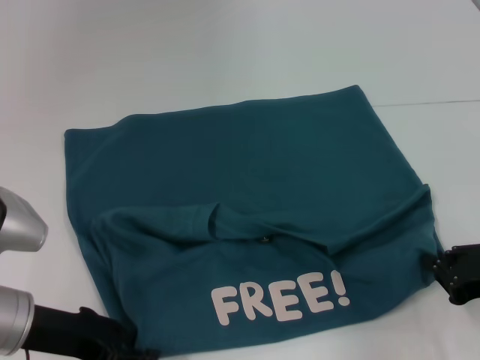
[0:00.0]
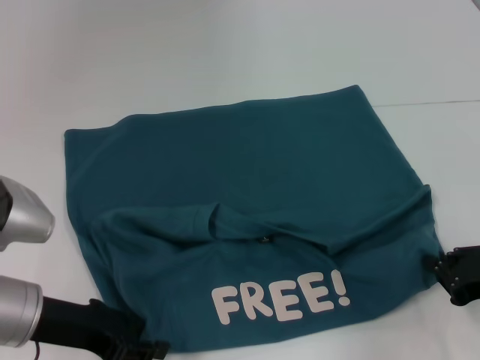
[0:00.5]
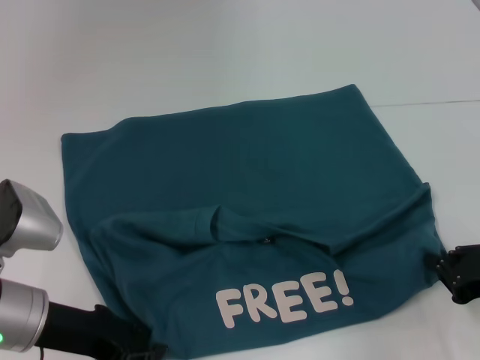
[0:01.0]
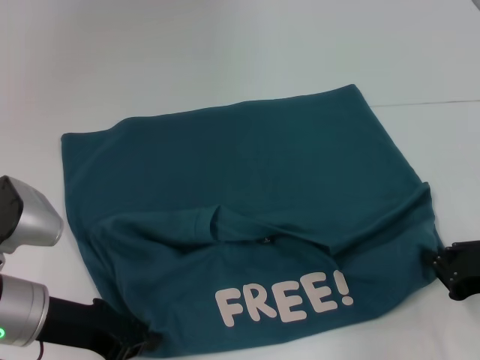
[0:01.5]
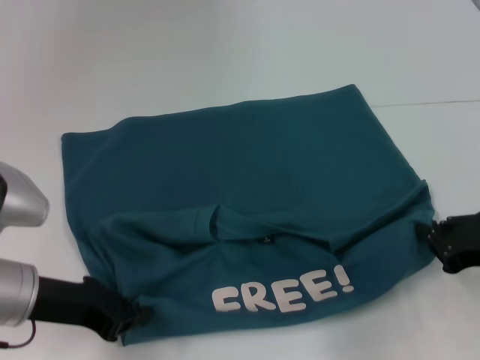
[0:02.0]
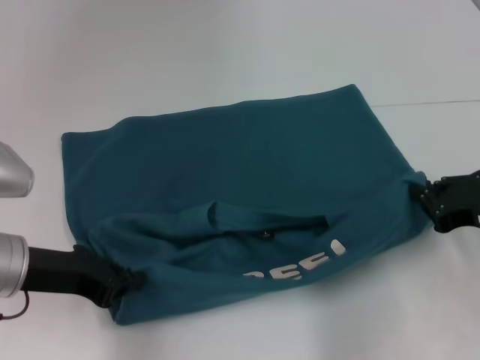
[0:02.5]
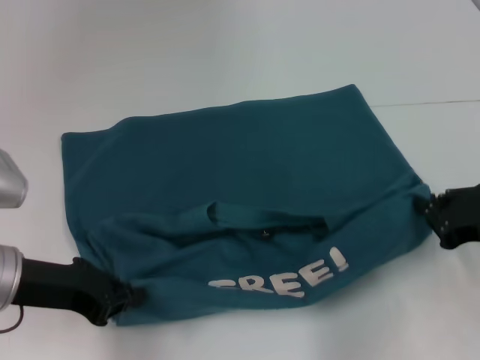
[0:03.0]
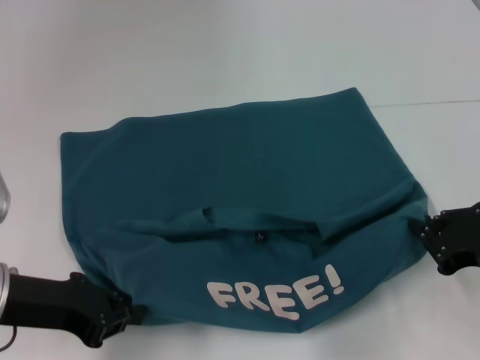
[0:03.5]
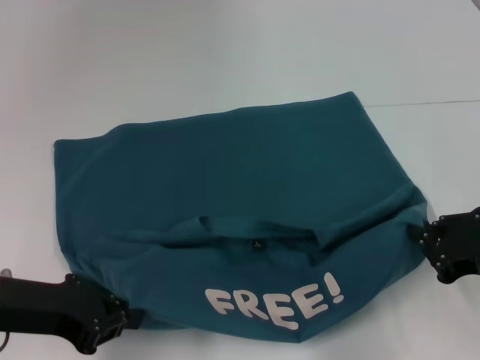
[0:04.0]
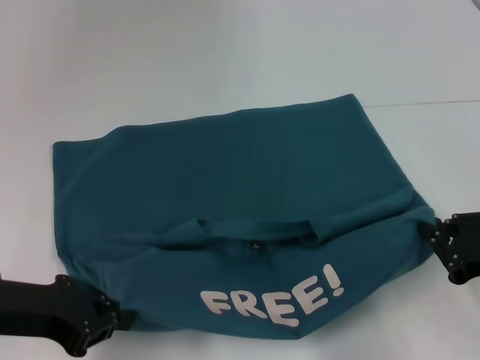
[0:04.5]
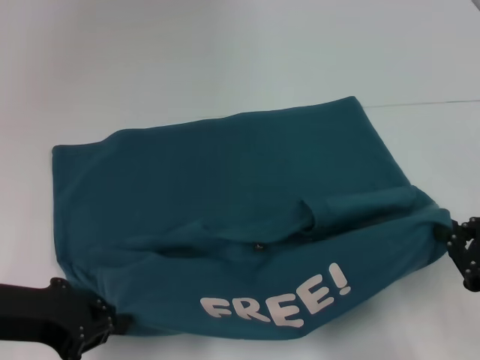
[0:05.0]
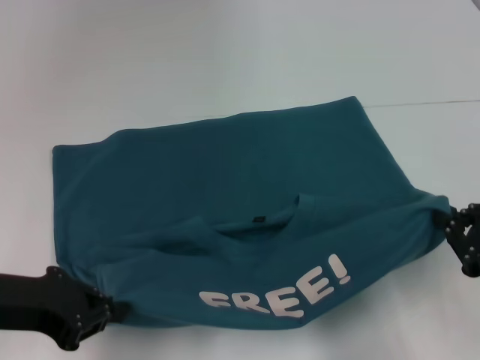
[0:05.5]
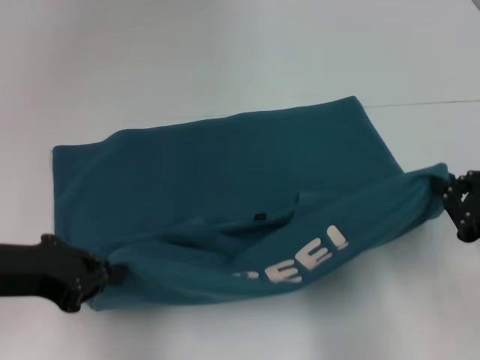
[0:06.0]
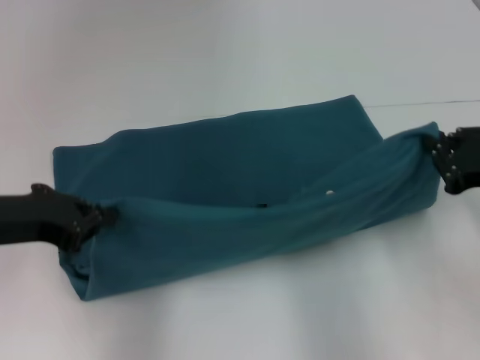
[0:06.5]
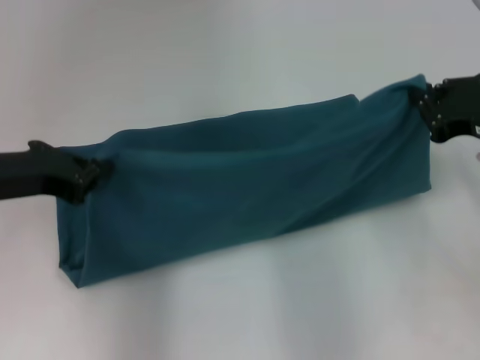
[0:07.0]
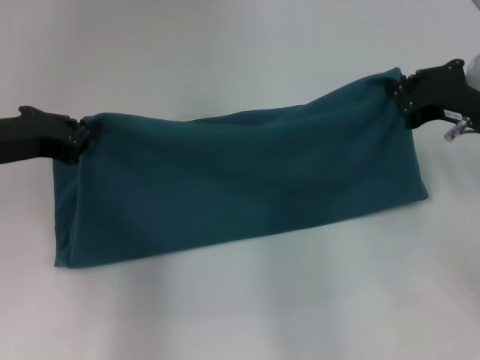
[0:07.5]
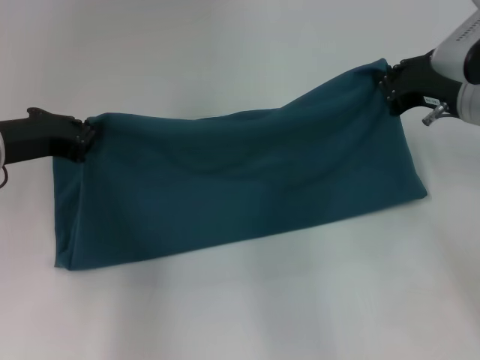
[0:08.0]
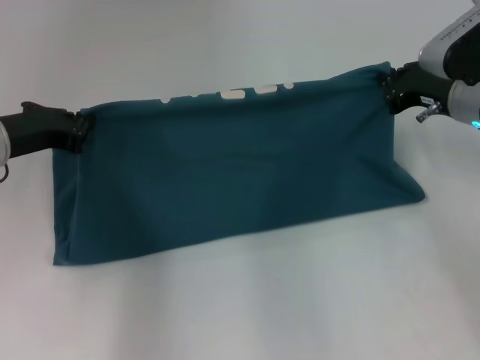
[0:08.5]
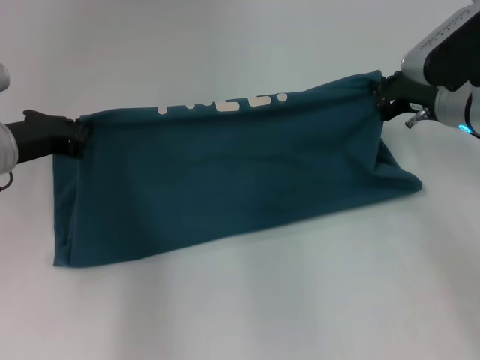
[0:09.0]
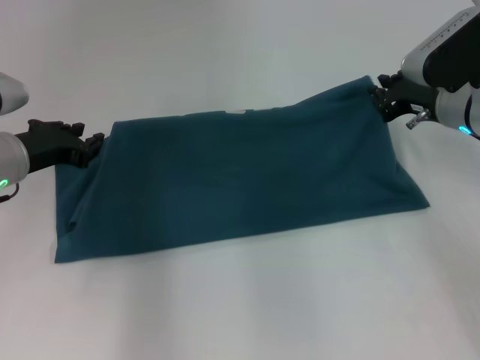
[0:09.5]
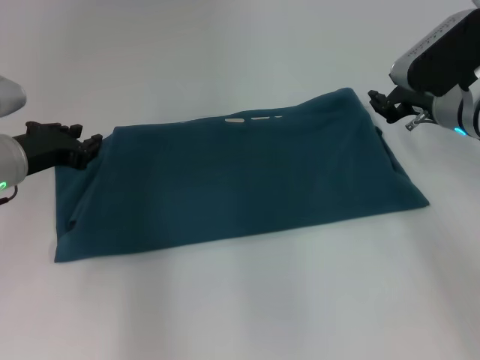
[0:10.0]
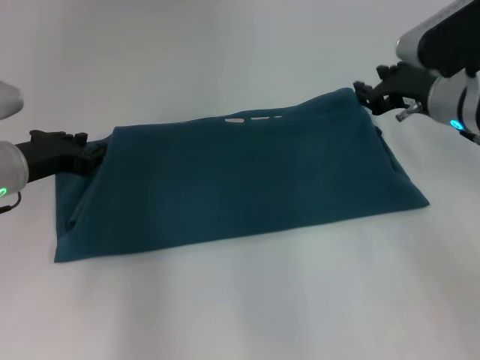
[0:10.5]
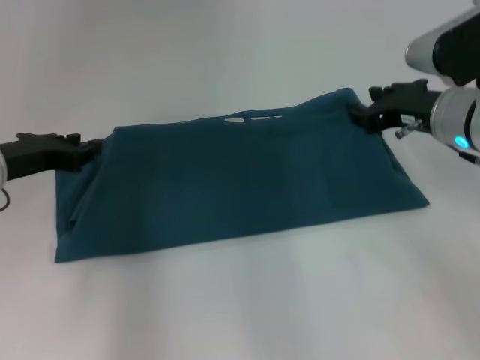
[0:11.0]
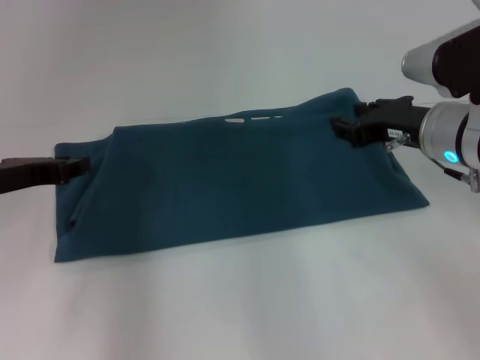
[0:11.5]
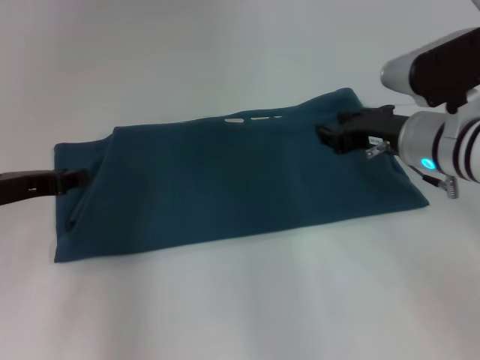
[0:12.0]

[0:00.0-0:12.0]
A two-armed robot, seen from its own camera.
Step, 0:01.5 to 0:10.0: Fold the clothes to the left.
Step, 0:01.5 to 0:10.0: Fold the clothes to the right.
0:00.0 to 0:02.0: The left gripper closes.
0:02.0 to 0:04.0: The grippers move only a little.
0:06.0 to 0:08.0: The left gripper is displaced forward by some 10 cm, while the right gripper travels forward by roughly 15 cm.
0:08.0 to 0:10.0: The right gripper ends up approximately 5 cm from where it was, and opens up. The left gripper opens its fingers.
0:10.0 to 0:12.0: The right gripper shifts by approximately 5 cm. Meanwhile the left gripper goes approximately 5 cm backward.

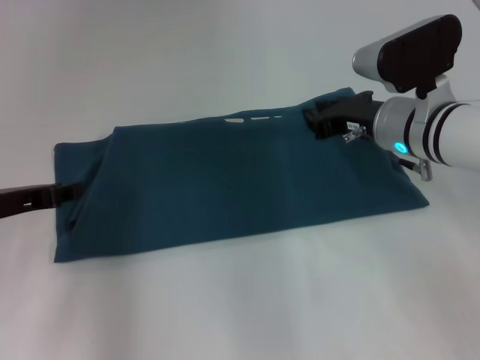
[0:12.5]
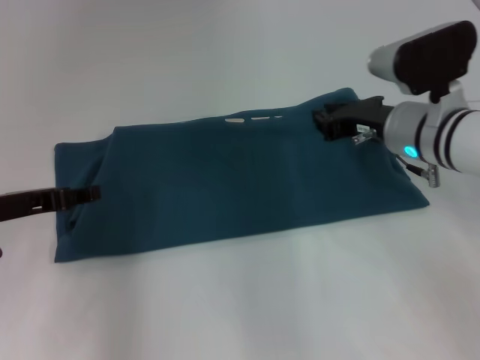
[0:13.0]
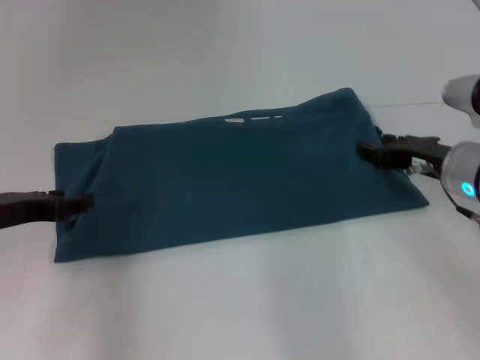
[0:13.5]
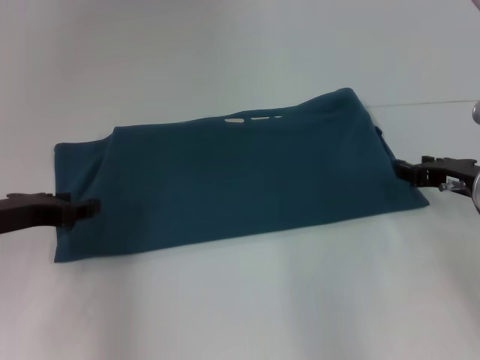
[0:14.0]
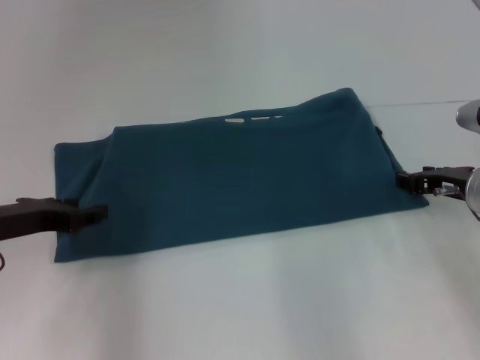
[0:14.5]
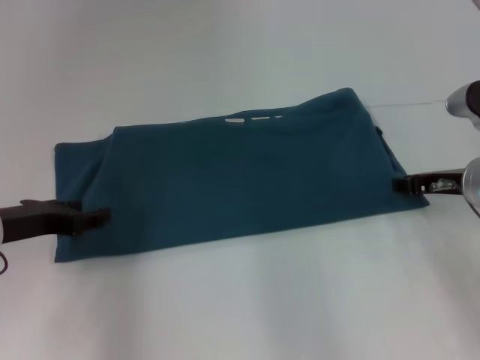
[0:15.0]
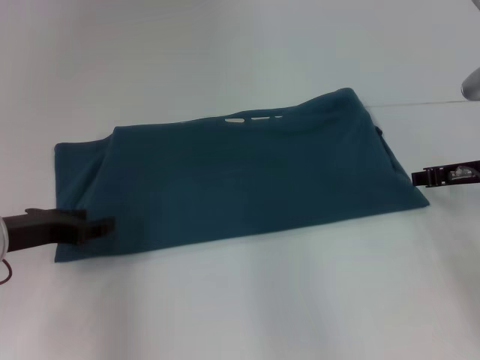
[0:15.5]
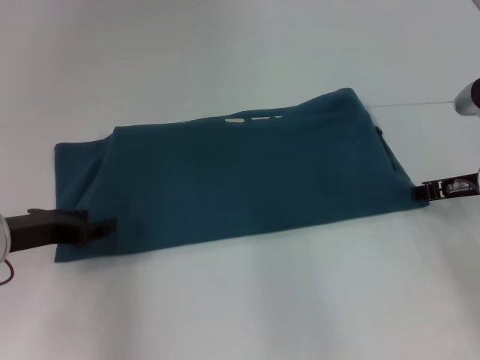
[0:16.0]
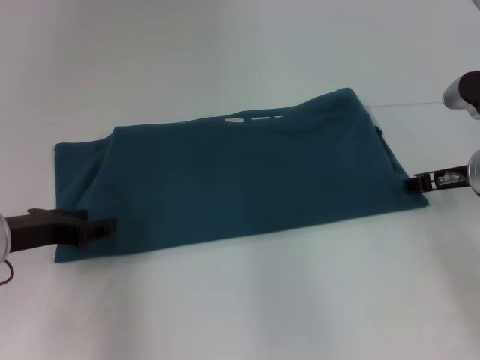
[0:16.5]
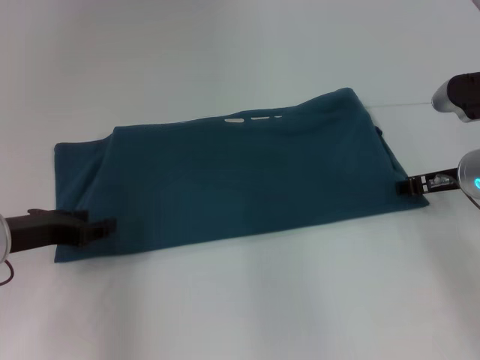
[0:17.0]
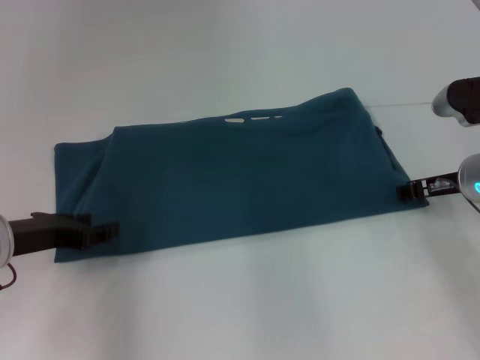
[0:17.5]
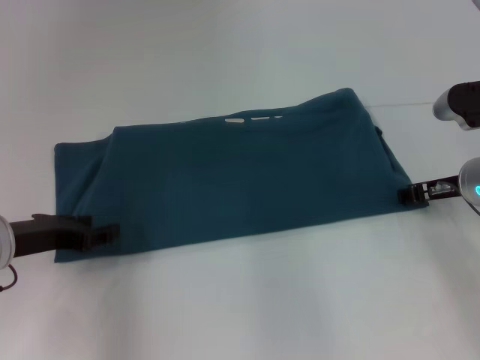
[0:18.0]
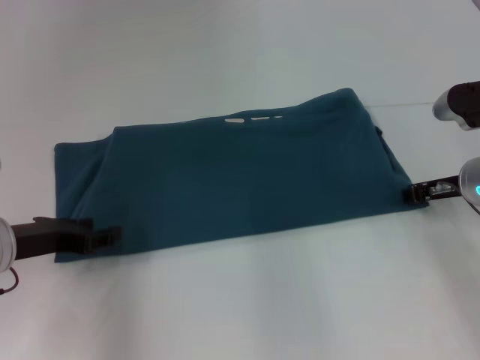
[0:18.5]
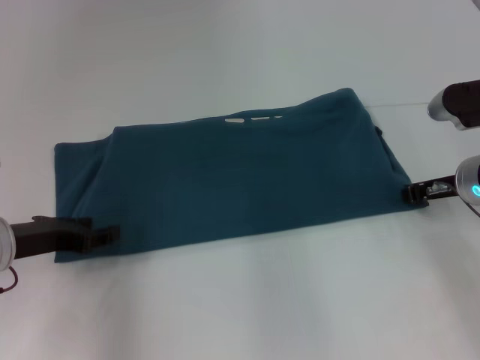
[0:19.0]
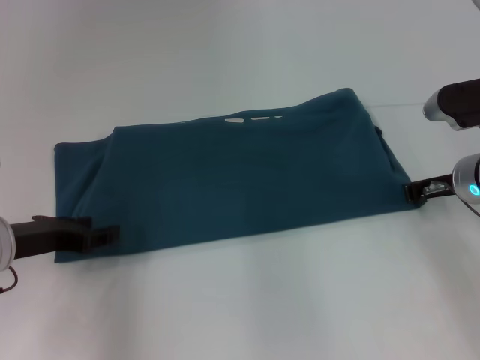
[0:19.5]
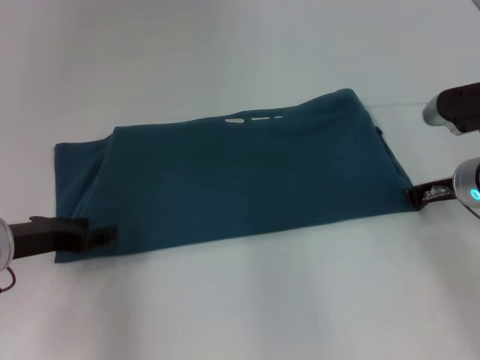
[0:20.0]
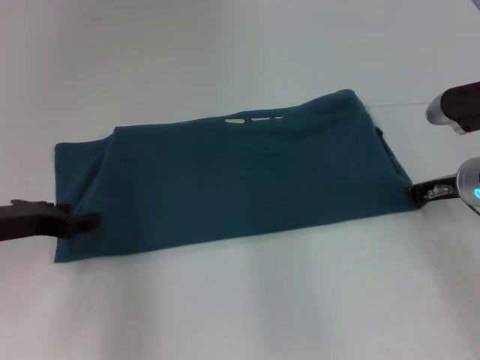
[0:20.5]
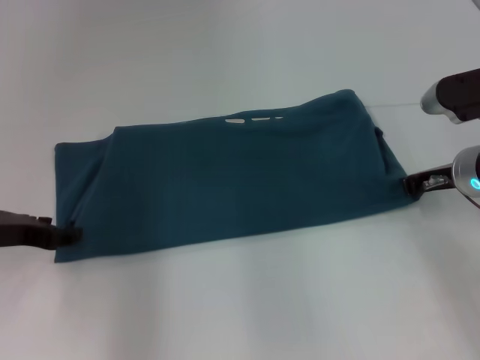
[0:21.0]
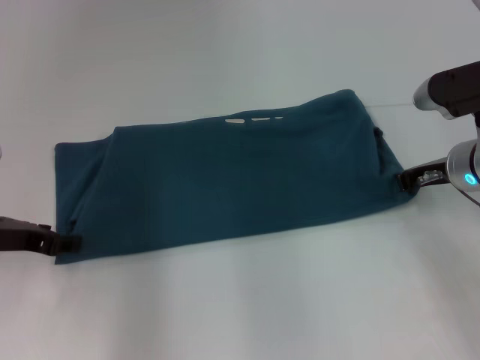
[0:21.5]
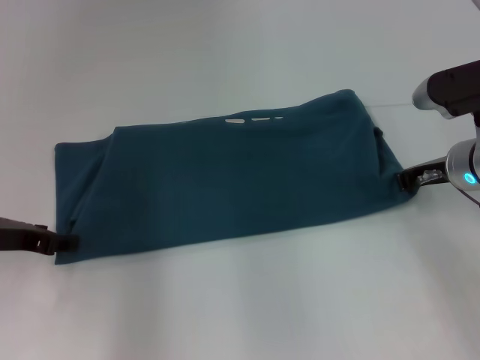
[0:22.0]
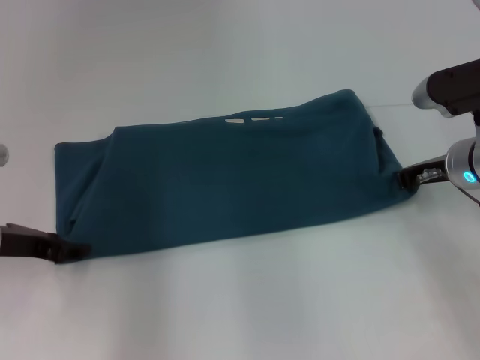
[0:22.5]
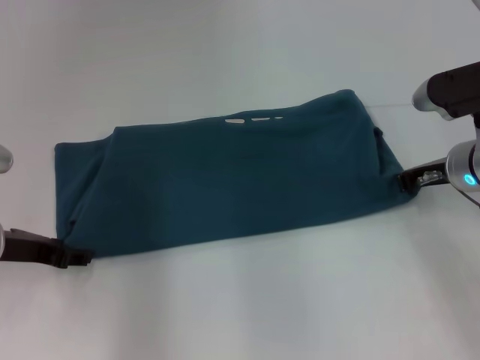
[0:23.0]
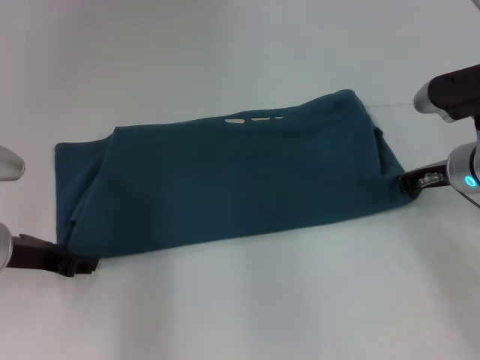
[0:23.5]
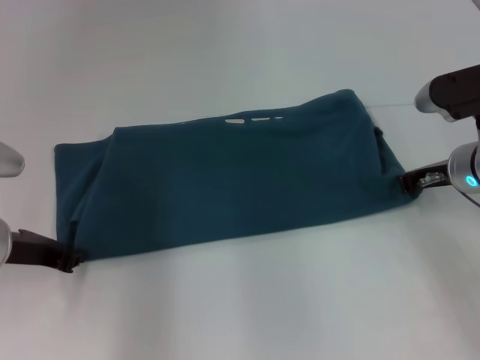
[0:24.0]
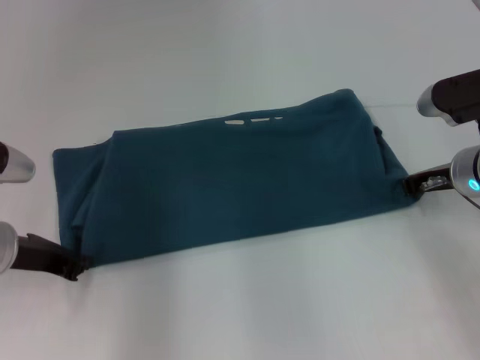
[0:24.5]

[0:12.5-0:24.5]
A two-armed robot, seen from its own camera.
0:12.5 to 0:14.5: The right gripper is displaced to the right and downward by about 10 cm.
0:14.5 to 0:18.5: There are only small adjustments of the grippers.
0:18.5 to 0:20.5: The right gripper closes up.
0:20.5 to 0:22.5: There are only small adjustments of the grippers.
0:22.5 to 0:24.5: The left gripper closes.

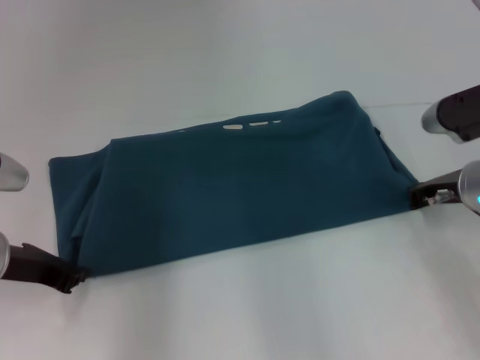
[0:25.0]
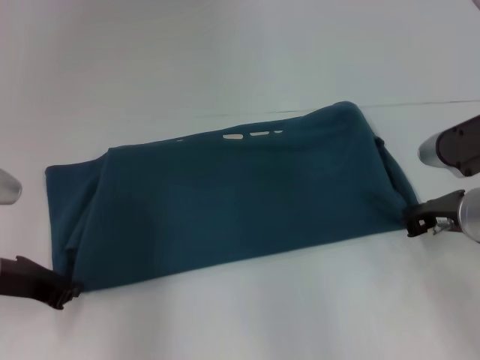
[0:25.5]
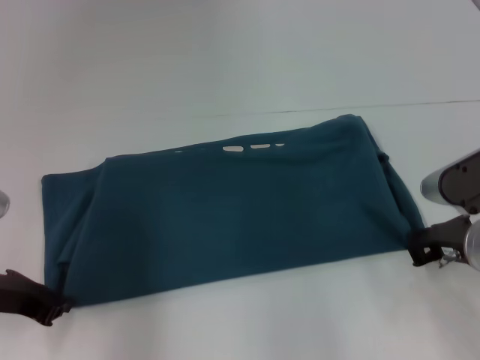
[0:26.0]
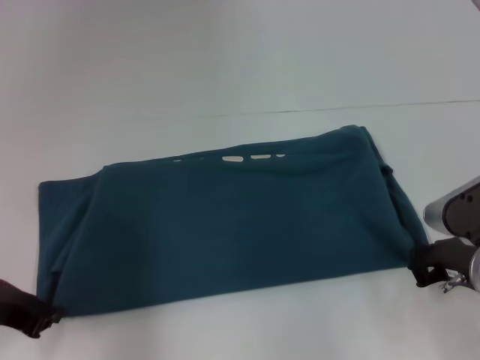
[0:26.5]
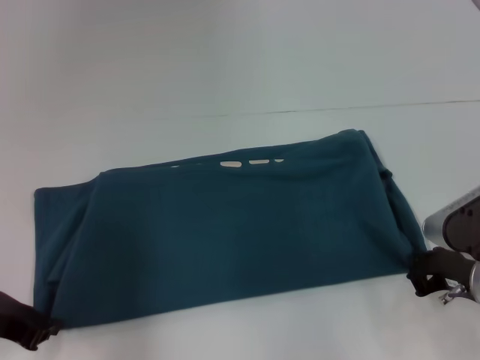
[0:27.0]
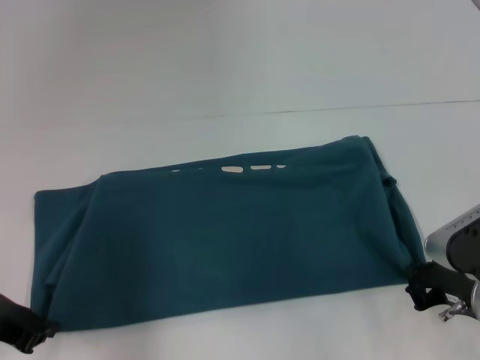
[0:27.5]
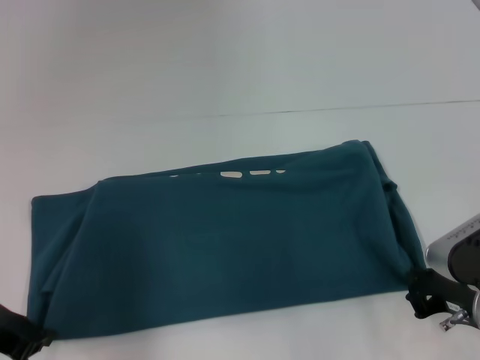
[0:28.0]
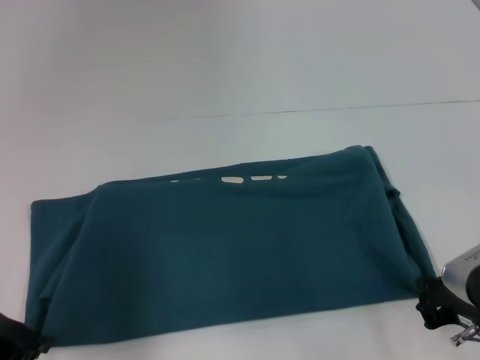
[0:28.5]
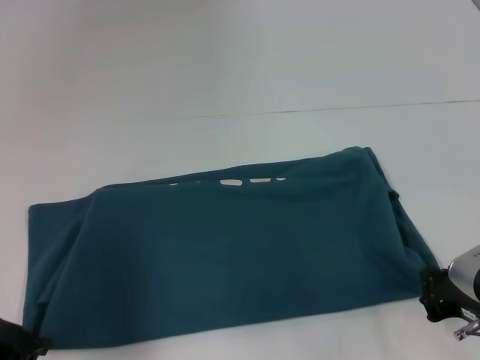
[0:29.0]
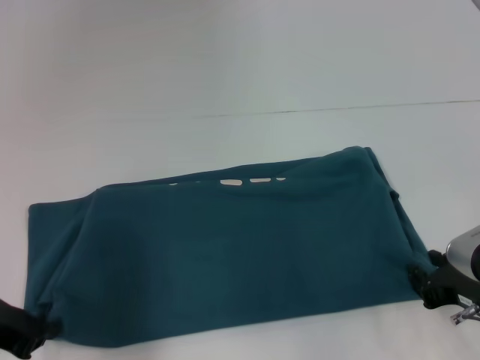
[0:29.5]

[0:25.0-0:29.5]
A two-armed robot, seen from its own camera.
0:25.0 to 0:27.0: The left gripper shifts by some 5 cm. The right gripper moves backward, approximately 10 cm.
0:27.0 to 0:29.5: There are only small adjustments of the grippers.
